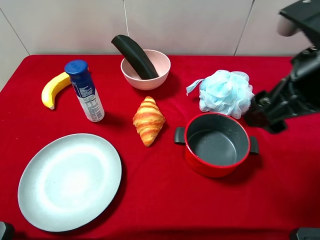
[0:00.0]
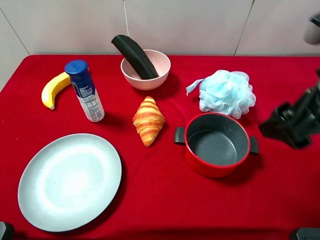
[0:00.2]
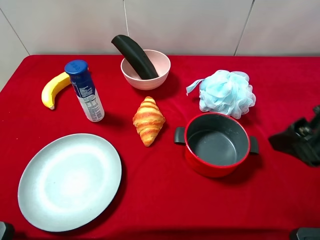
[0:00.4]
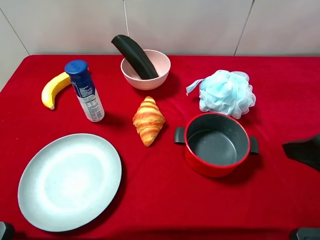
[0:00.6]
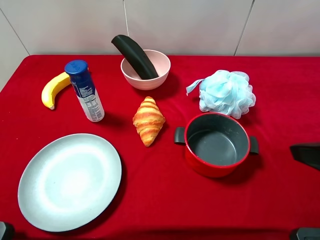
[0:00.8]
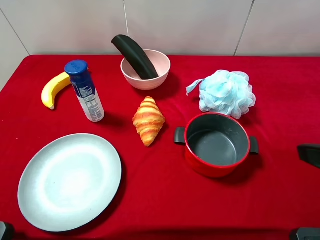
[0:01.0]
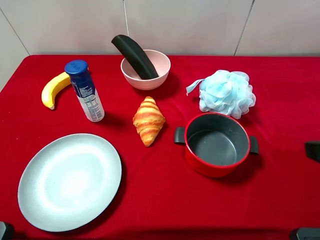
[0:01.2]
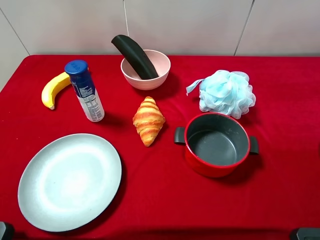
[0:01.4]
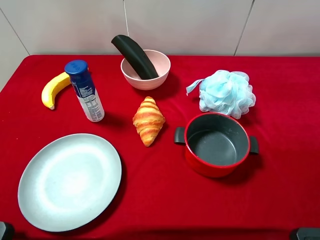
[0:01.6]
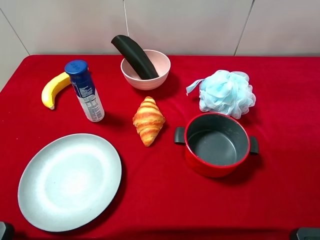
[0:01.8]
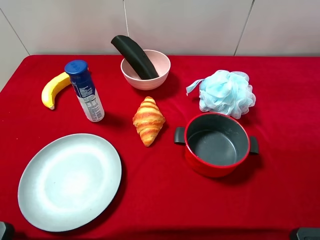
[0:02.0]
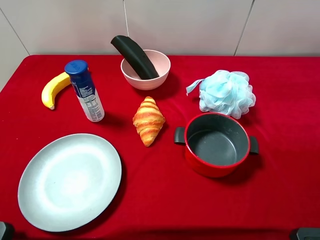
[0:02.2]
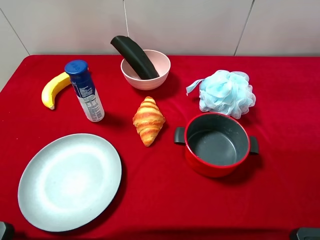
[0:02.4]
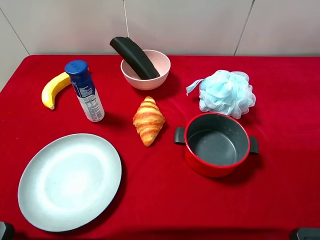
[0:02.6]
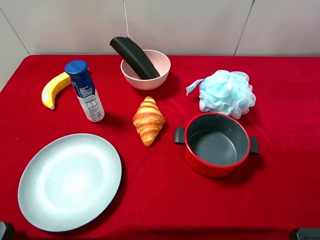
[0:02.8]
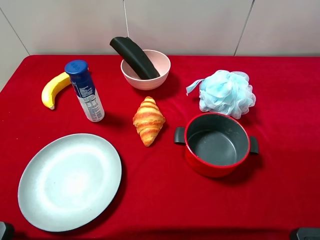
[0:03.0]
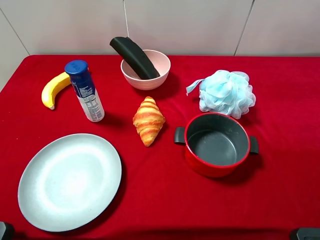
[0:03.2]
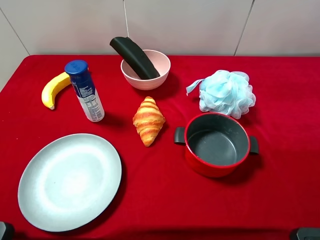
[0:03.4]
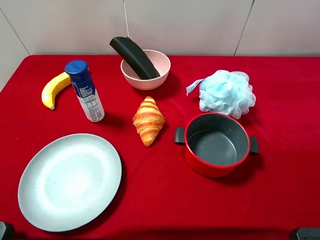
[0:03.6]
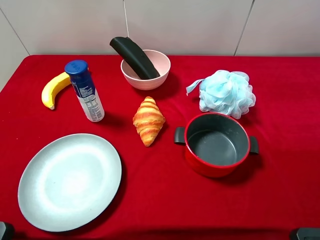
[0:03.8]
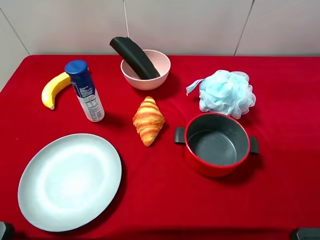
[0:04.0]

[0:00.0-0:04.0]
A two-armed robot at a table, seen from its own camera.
Task of the whole recording: pick up an item with a gripper and place it in a random container on the desktop.
0:00.0 to 0:01.4: The right gripper is displaced backward and to the right by some 15 cm.
